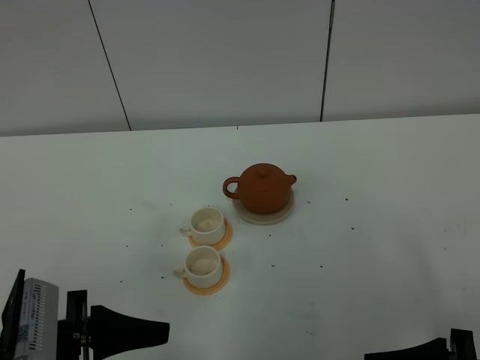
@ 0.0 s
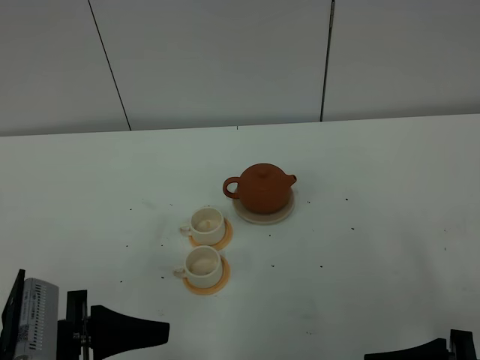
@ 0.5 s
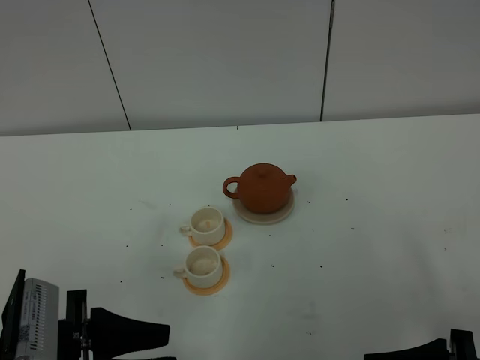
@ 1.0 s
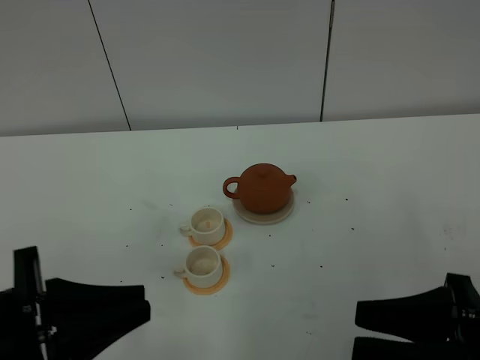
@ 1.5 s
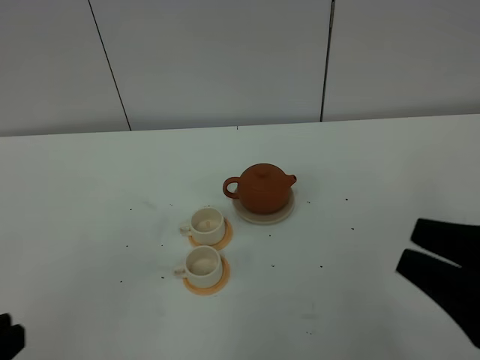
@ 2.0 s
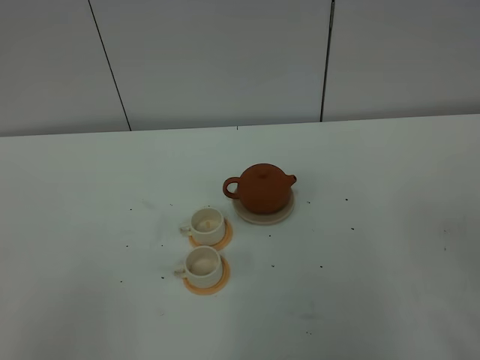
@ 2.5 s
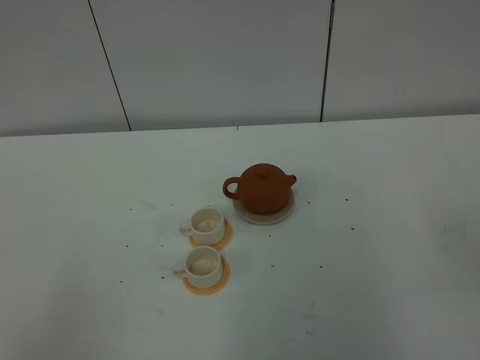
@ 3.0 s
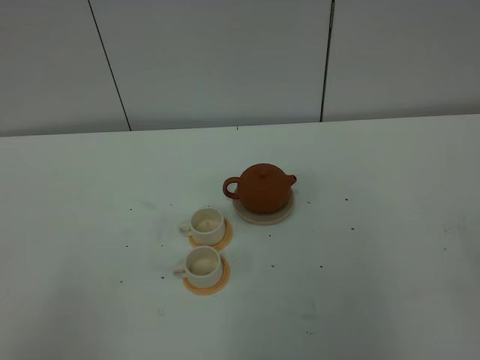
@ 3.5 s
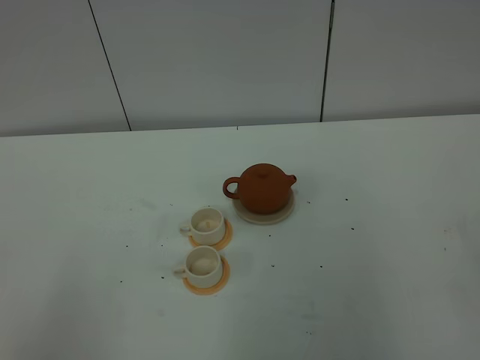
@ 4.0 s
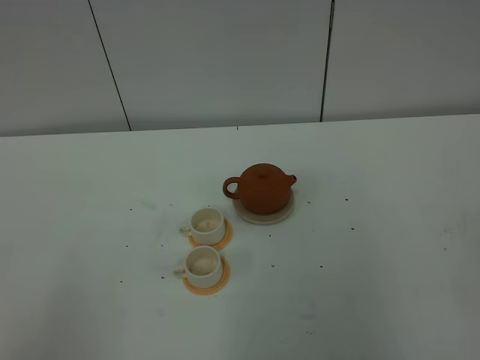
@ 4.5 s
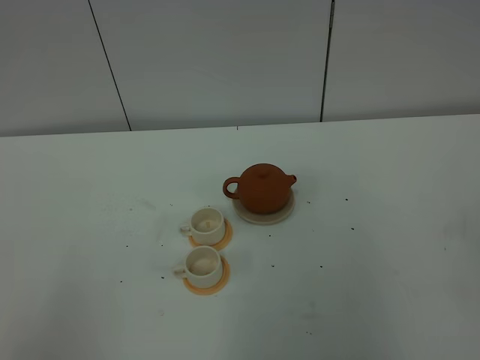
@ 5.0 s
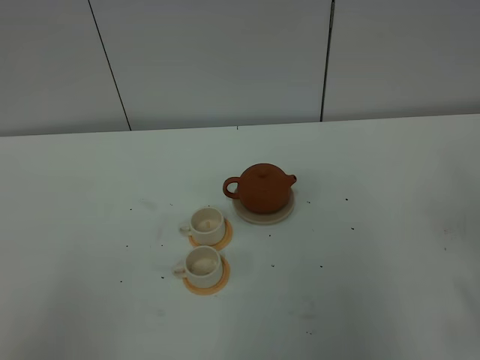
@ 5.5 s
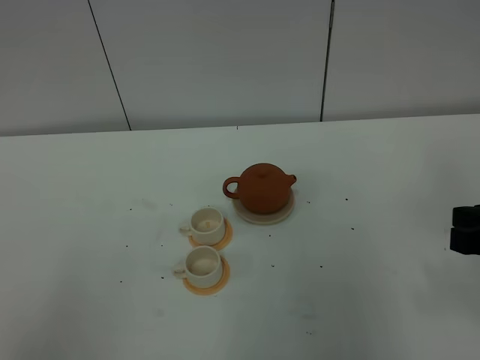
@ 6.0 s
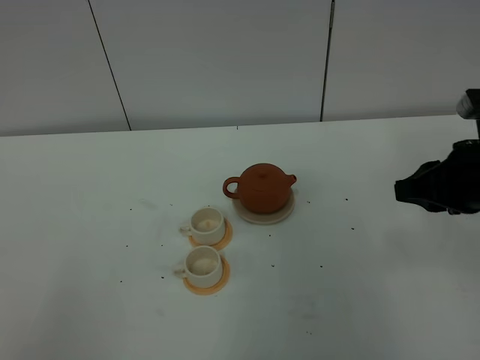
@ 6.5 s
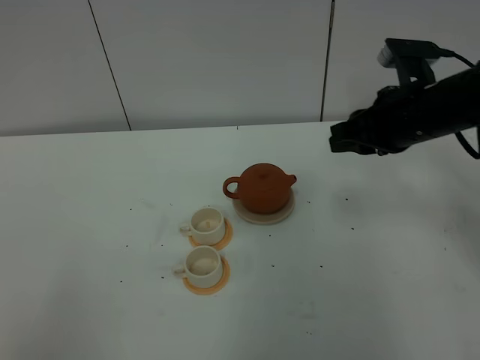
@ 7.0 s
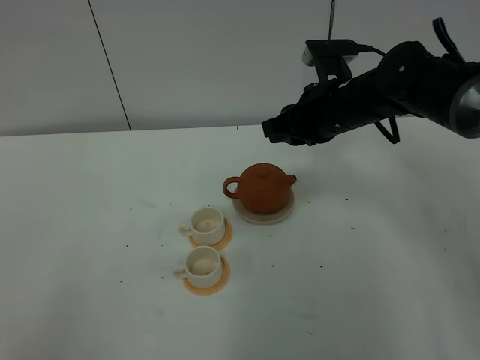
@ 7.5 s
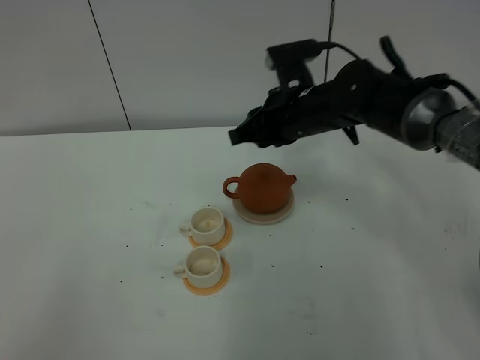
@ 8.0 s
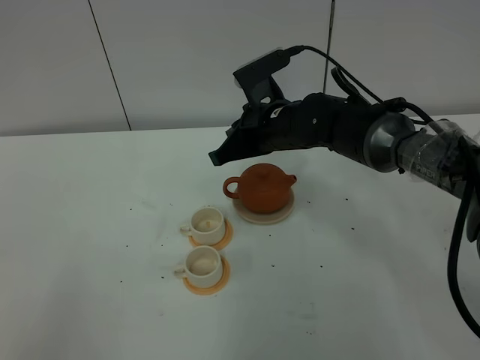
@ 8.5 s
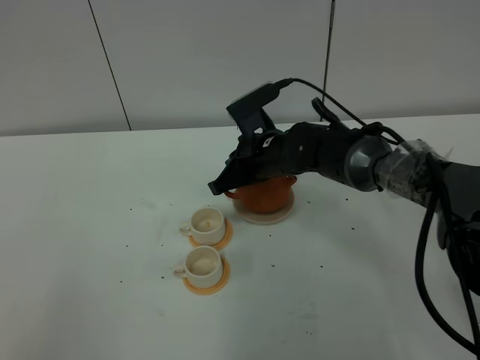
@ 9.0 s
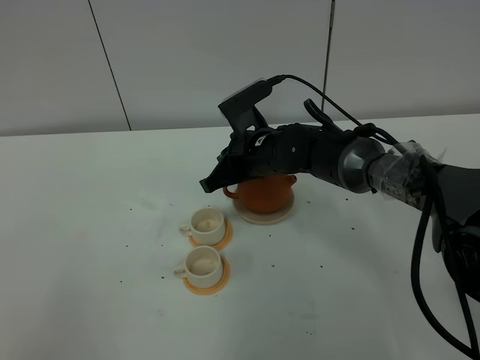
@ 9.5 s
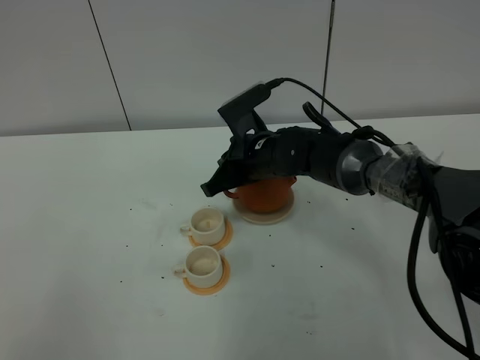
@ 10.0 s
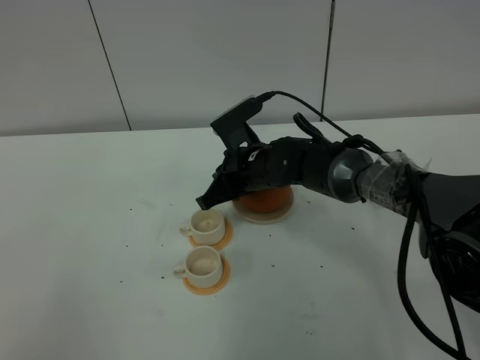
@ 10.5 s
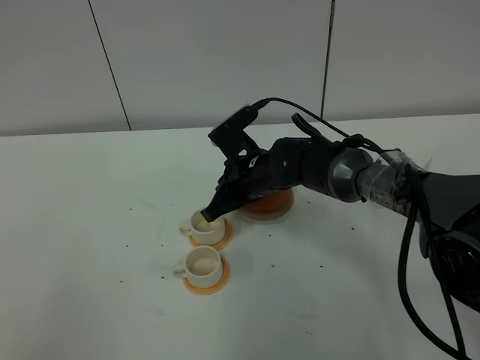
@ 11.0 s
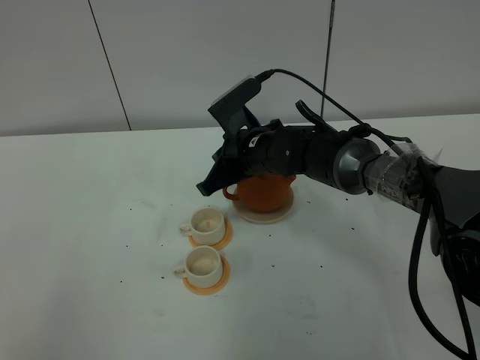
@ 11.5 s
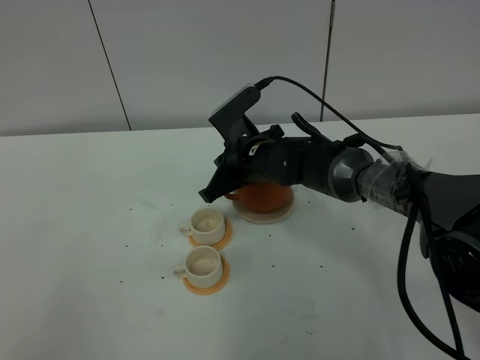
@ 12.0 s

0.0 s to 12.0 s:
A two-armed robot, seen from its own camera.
Task of the whole recording: grasp the brown teapot and pour the tea into the two white teacups one by one, put the brown teapot back in its original place.
0.0 to 2.0 s: The right gripper moves upward, approximately 10 cm, while the left gripper goes approximately 15 cm upward and backward, and closes.
2.0 to 4.0 s: The right gripper goes about 15 cm backward and to the right.
4.0 to 6.0 s: The right gripper is displaced forward by some 25 cm.
6.0 to 8.0 s: The right gripper goes roughly 30 cm forward and to the left.
8.0 to 10.0 s: The right gripper moves downward, roughly 5 cm, and closes up.
10.0 to 12.0 s: There are only small adjustments of the grippers.

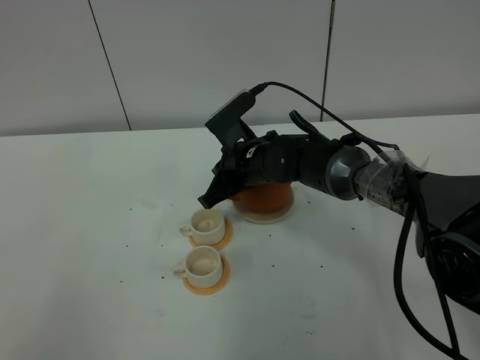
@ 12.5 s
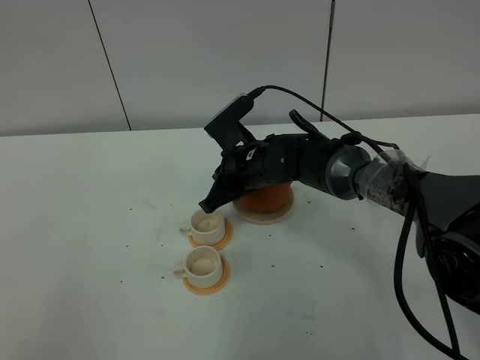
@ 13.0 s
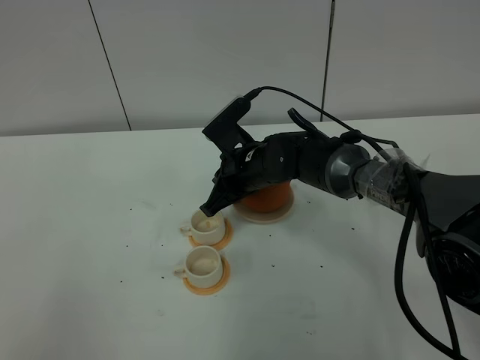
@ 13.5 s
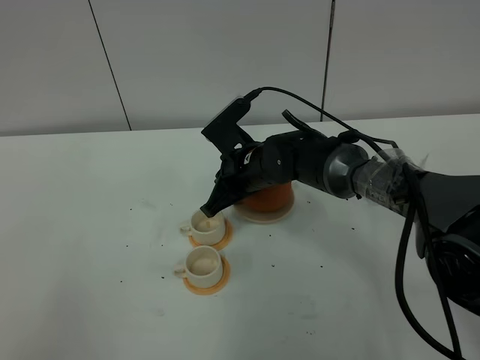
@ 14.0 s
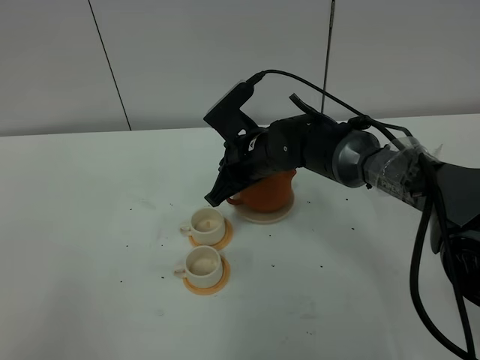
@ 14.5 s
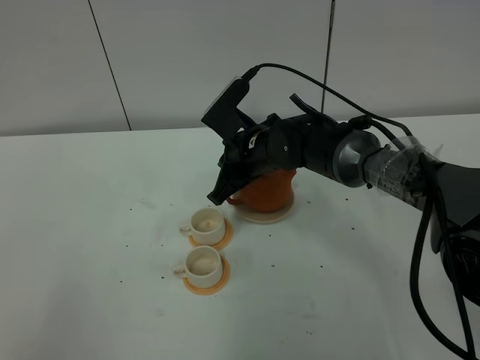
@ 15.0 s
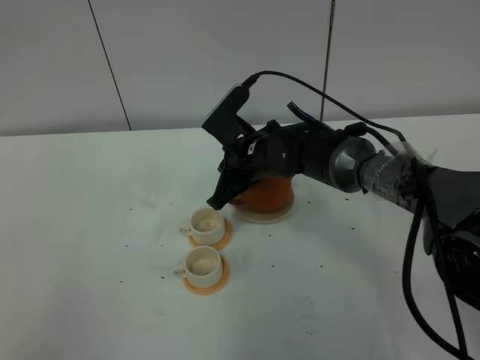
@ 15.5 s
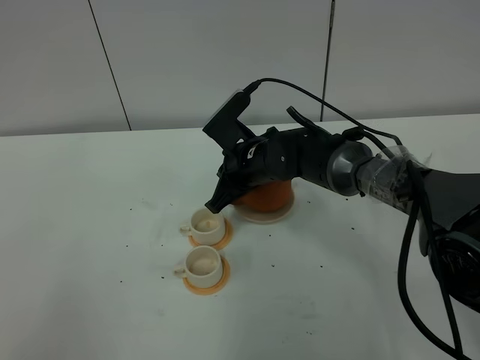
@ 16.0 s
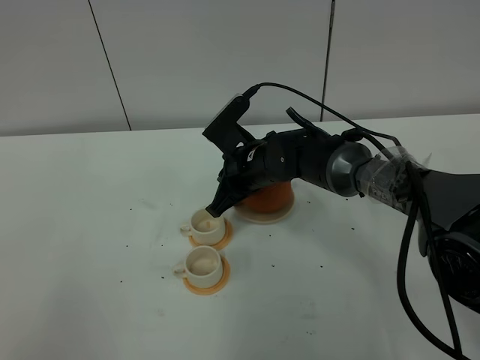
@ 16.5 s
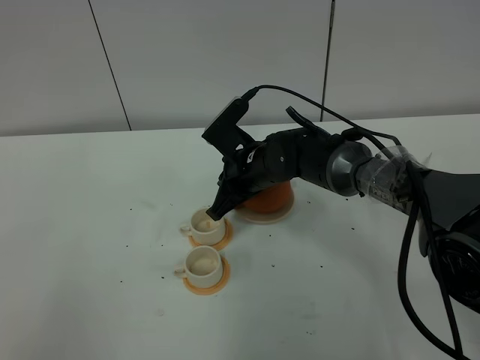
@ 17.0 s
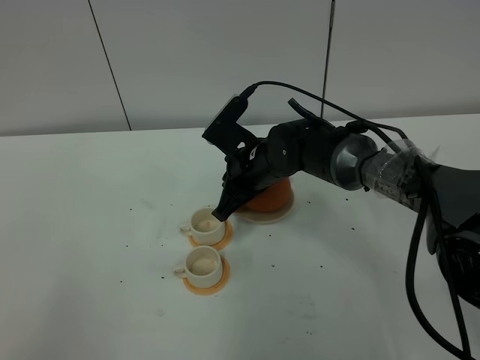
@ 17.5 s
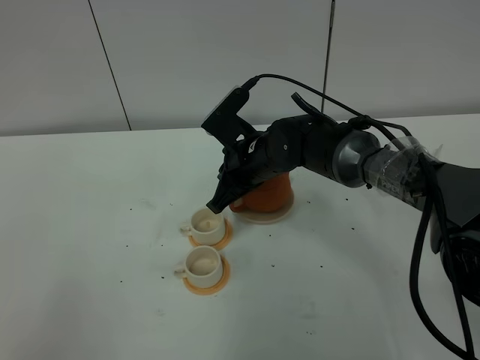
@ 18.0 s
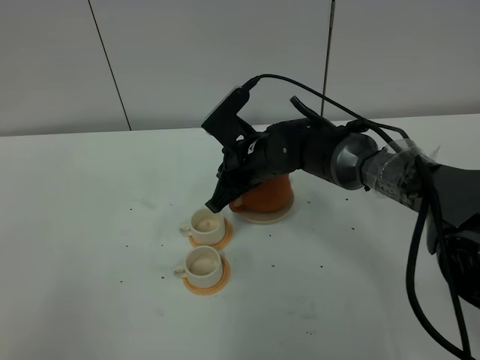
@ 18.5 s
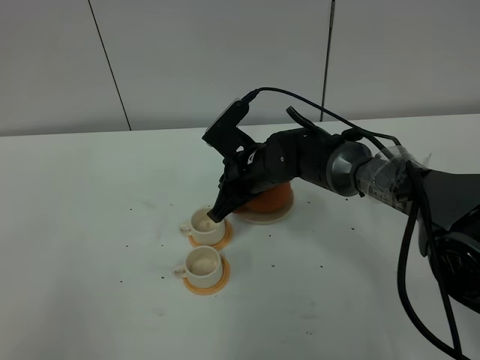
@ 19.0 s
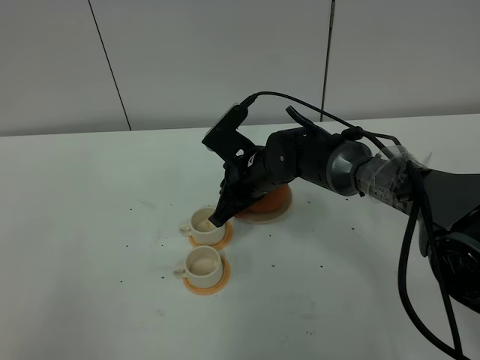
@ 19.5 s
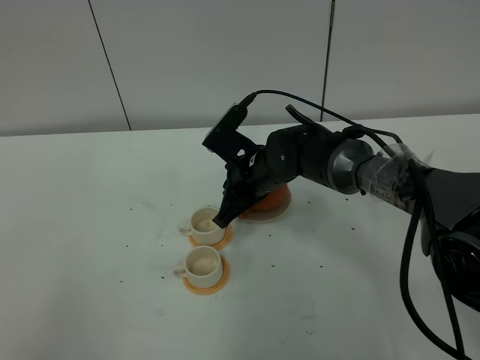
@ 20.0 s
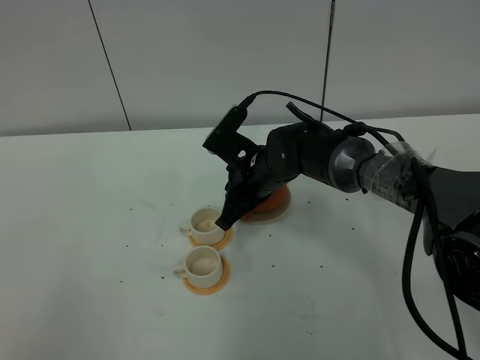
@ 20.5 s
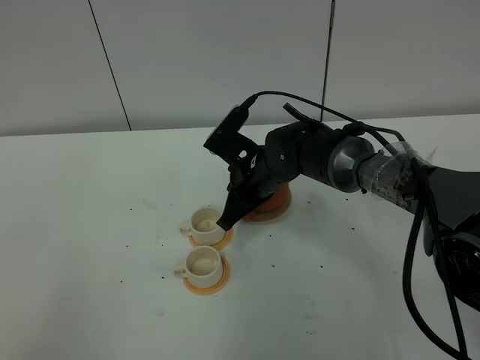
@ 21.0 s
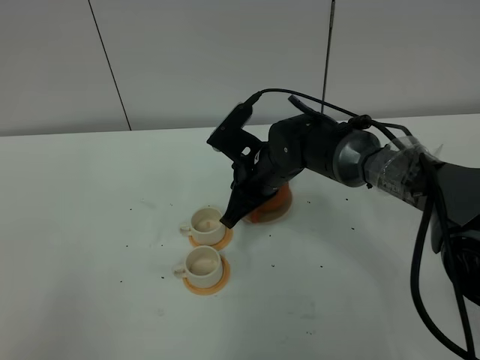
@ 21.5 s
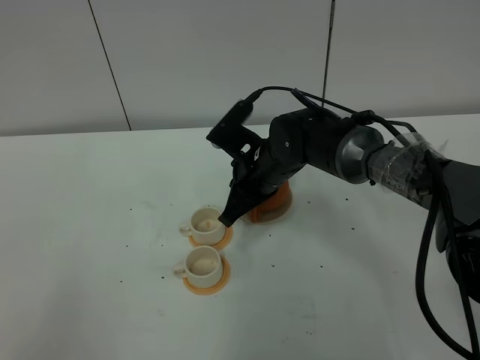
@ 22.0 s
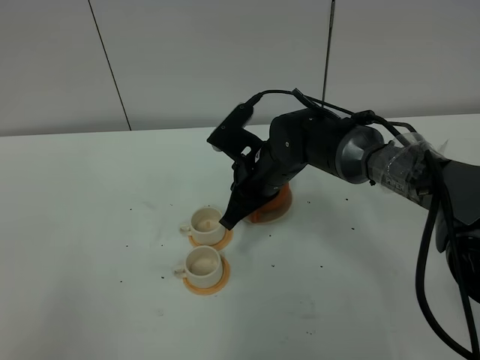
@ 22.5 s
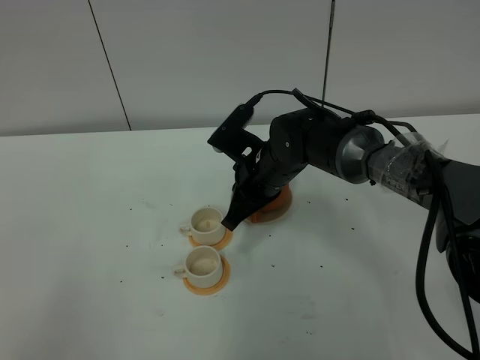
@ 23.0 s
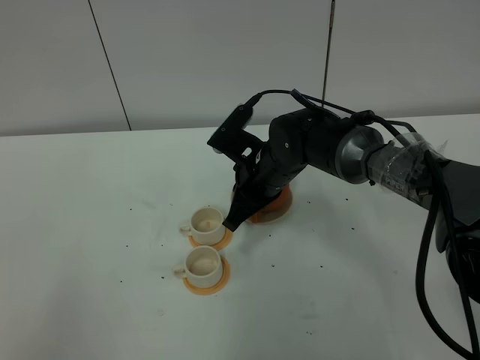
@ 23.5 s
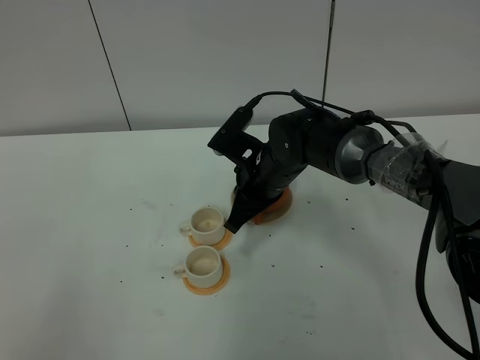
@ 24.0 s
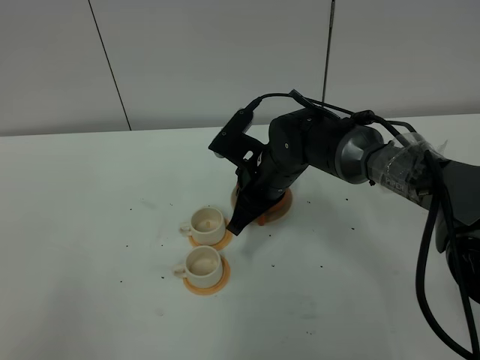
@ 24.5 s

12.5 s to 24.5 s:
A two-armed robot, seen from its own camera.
Task of the whole recording: grasp the brown teapot and pour the tea into the two white teacups one by one, put the brown teapot back in its original place.
12.5 to 22.5 s: The grippers move only a little.
22.5 to 24.5 s: Neither gripper changes place.

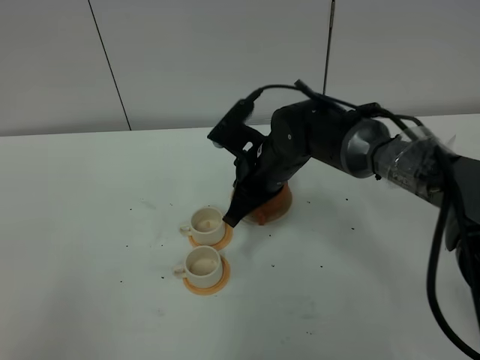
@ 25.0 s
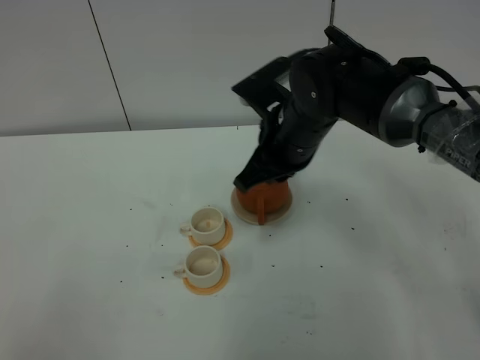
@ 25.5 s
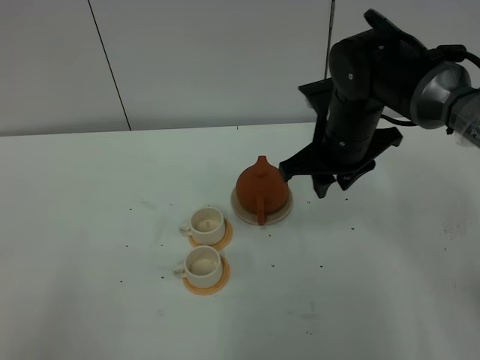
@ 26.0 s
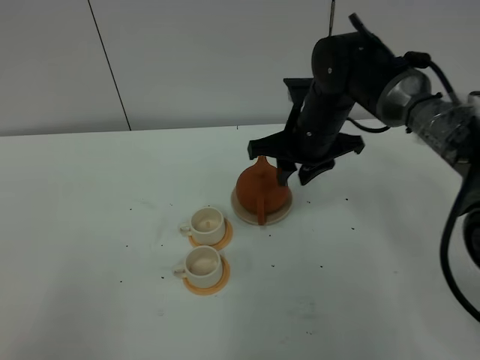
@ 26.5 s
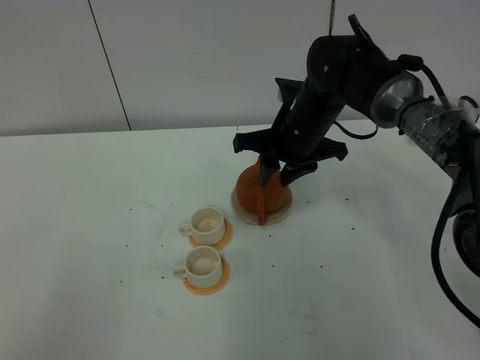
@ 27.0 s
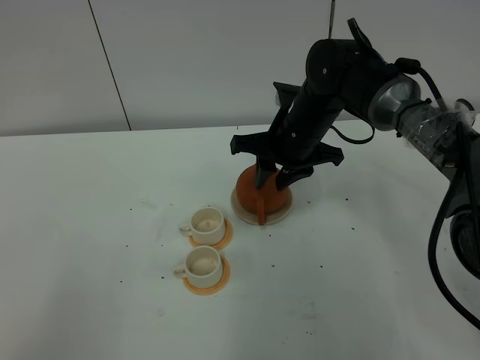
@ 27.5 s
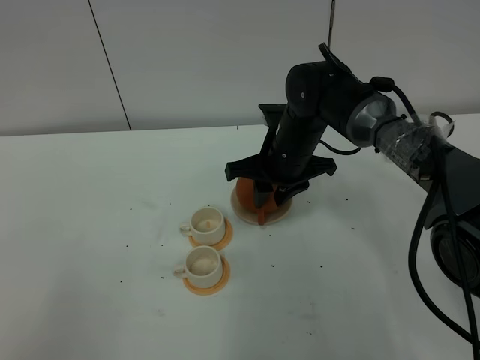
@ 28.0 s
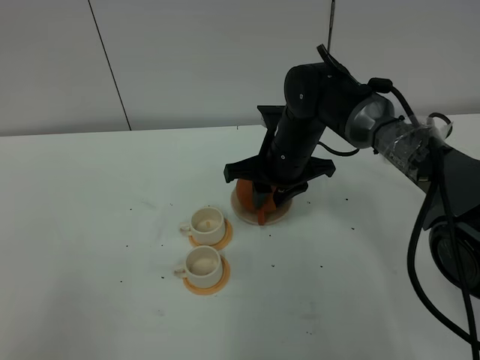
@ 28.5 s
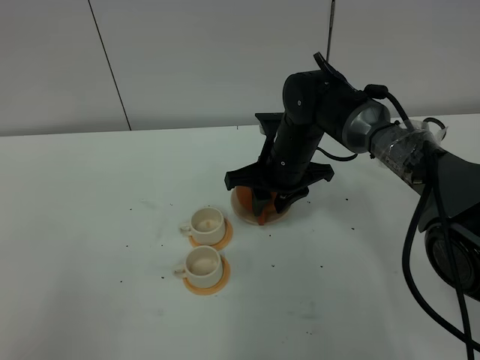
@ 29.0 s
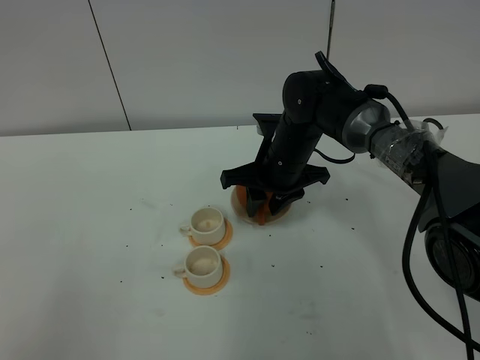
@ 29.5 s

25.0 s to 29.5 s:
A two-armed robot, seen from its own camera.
Task of the whole recording: grasp the brown teapot and pour the tea into the two white teacups one by one, put the brown teapot back in its original place.
25.0 to 27.0 s: The right gripper opens up.
27.0 to 29.5 s: The right gripper ends up approximately 5 cm from where it was.
